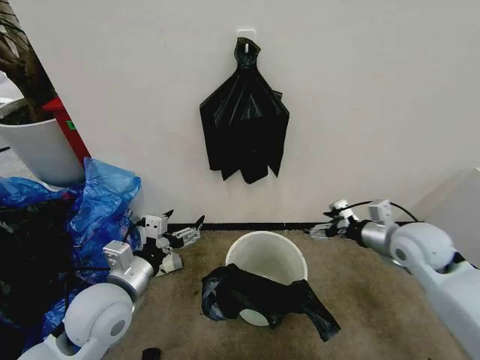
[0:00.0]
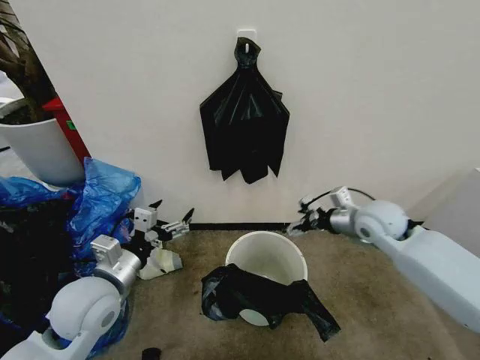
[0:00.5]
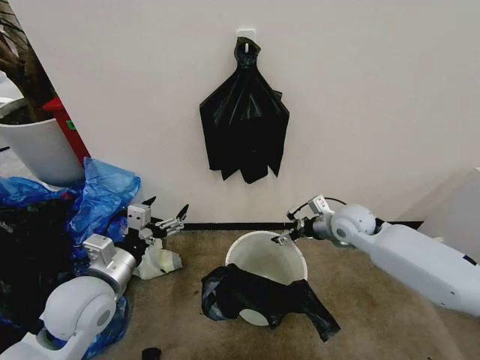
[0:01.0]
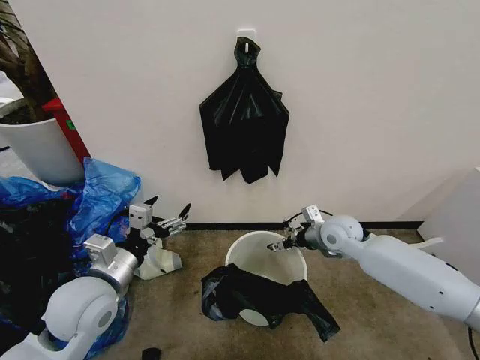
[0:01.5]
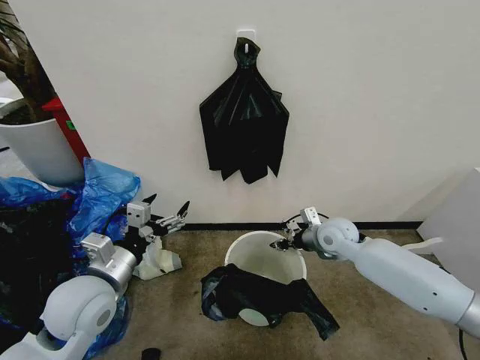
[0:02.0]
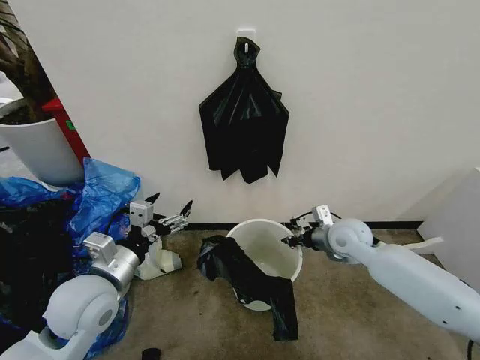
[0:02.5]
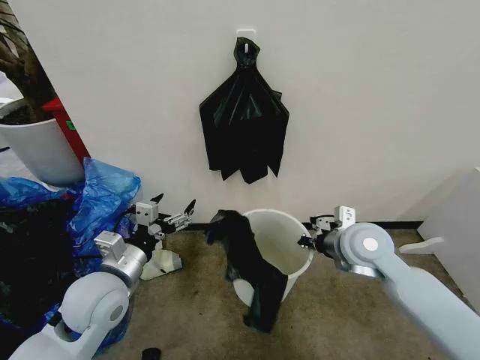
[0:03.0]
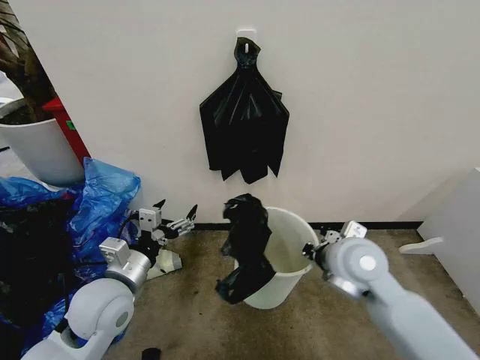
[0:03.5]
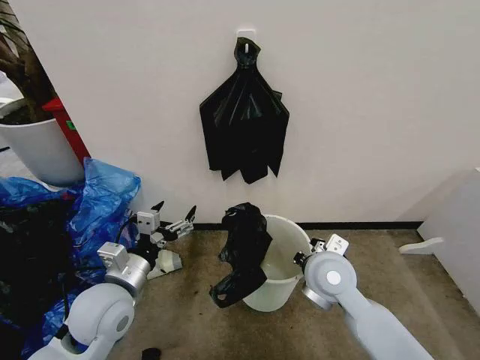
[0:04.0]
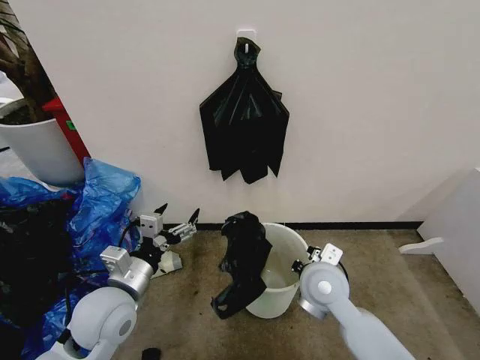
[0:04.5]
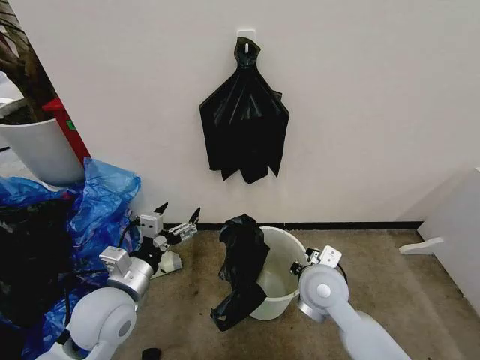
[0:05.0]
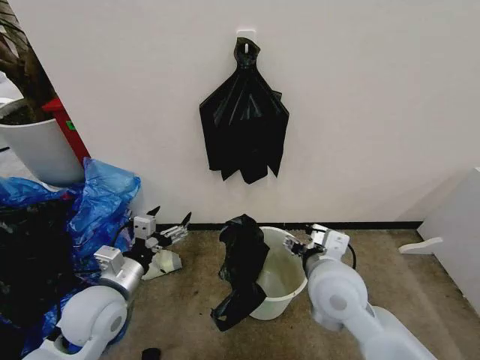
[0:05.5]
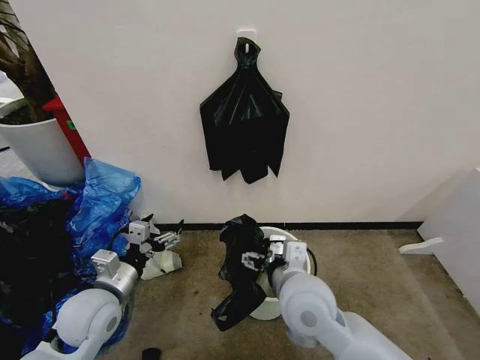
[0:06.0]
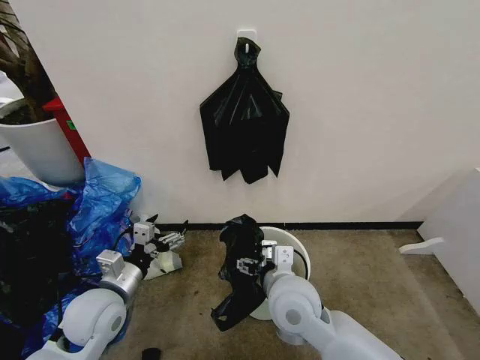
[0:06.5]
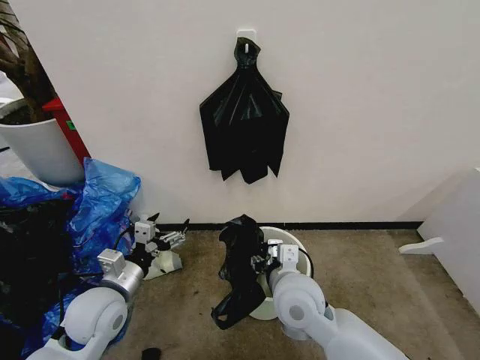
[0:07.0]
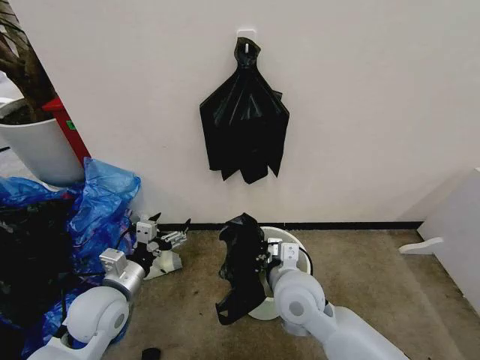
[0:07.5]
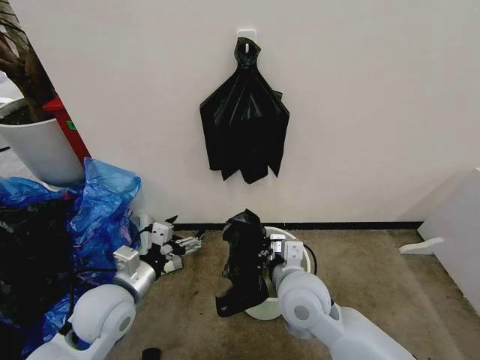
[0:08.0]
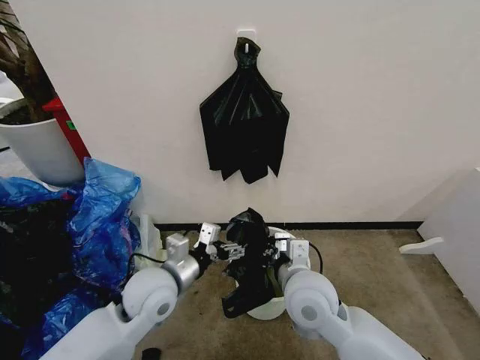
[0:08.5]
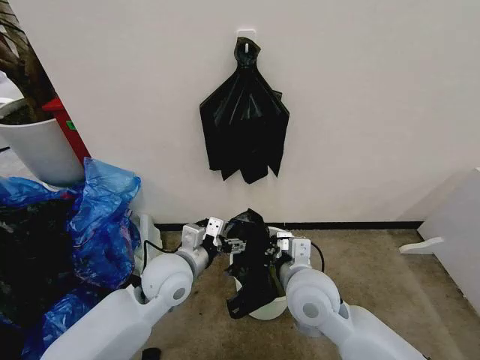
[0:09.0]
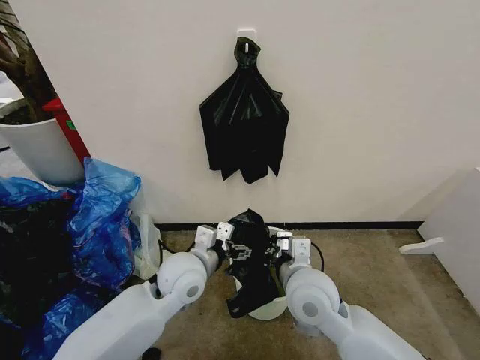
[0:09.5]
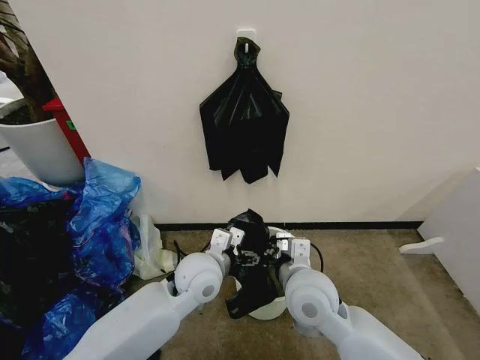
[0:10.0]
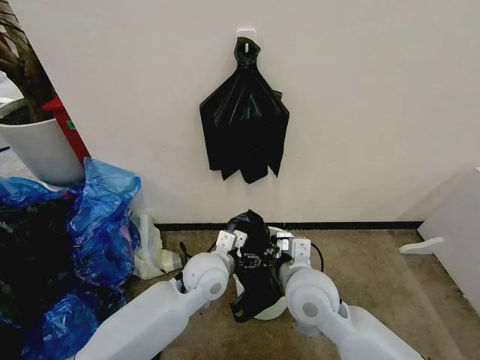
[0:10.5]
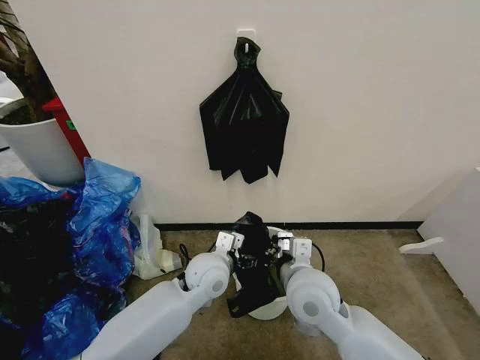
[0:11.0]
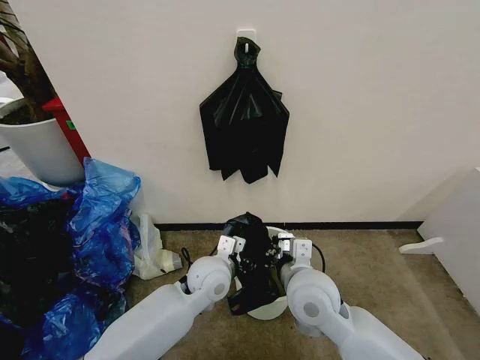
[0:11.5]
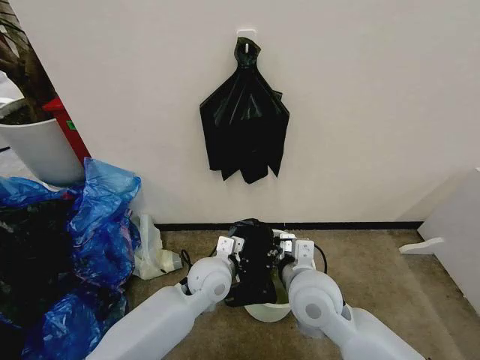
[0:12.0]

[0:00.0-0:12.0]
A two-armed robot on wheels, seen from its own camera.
Task of the whole recording: Place the garbage bag over the trash bin.
0:00.0 to 0:02.0: The right gripper is displaced to the left, forward and downward by approximately 15 cm, and closes.
0:02.0 to 0:04.0: The right gripper moves backward, to the left and upward, roughly 15 cm.
0:04.0 to 0:06.0: The left gripper ends up some 5 cm from where it was; the right gripper is displaced to the left and backward by some 10 cm, and opens.
0:06.0 to 0:08.0: The right gripper closes up.
0:08.0 to 0:10.0: The left gripper goes roughly 15 cm to the right and forward.
0:10.0 to 0:12.0: The left gripper changes place by some 5 cm, and closes up.

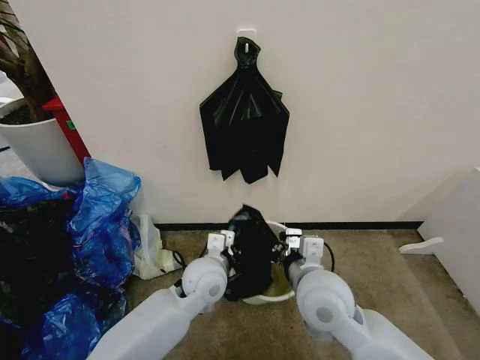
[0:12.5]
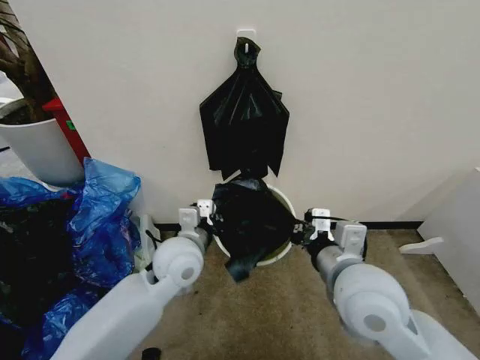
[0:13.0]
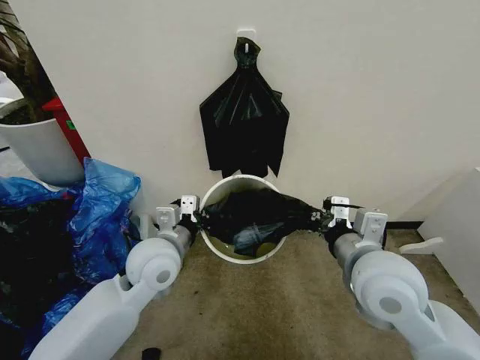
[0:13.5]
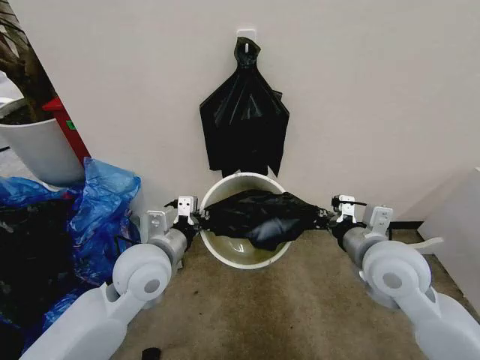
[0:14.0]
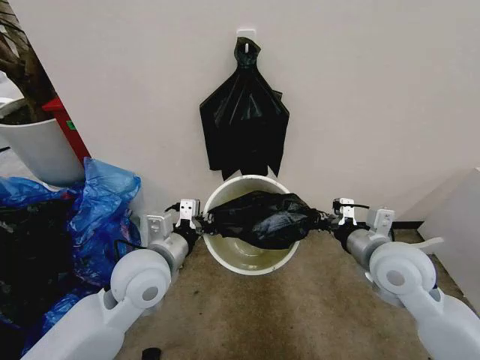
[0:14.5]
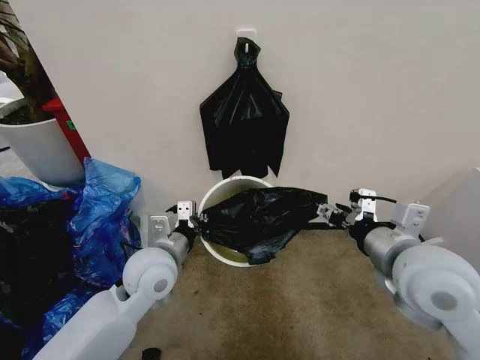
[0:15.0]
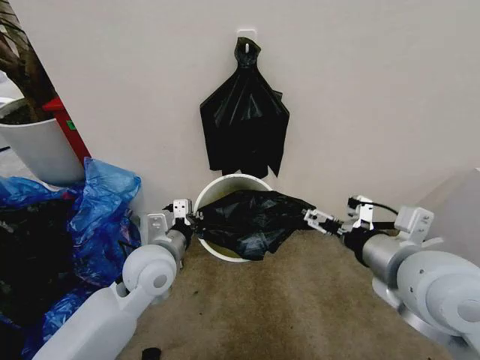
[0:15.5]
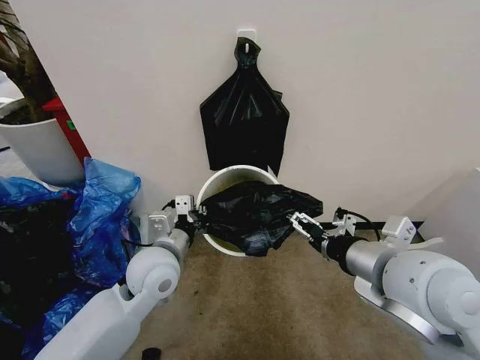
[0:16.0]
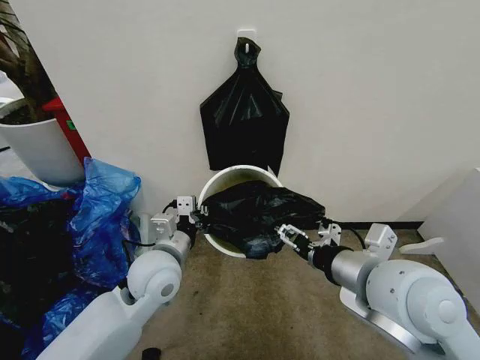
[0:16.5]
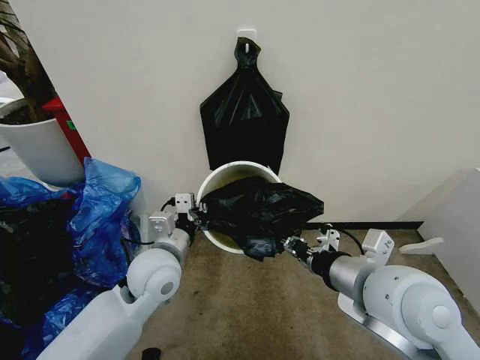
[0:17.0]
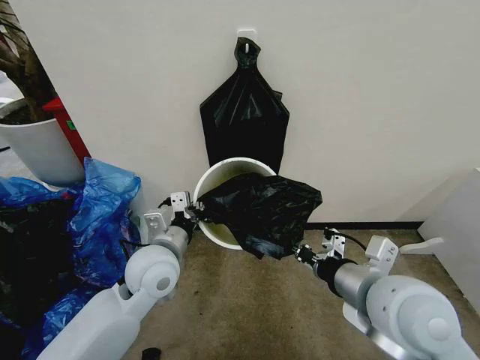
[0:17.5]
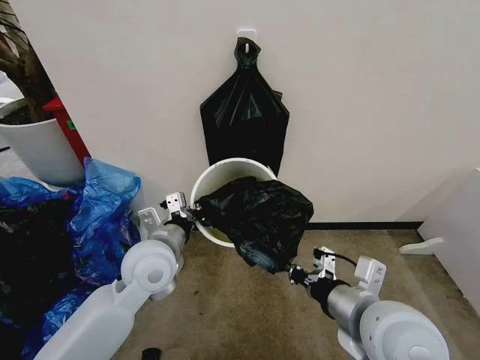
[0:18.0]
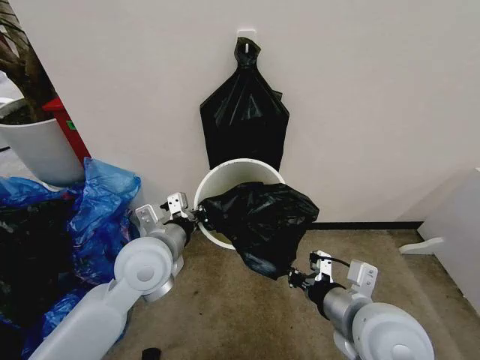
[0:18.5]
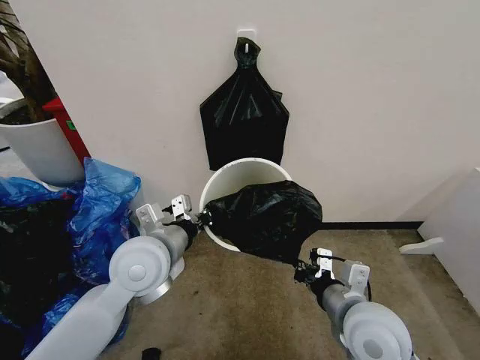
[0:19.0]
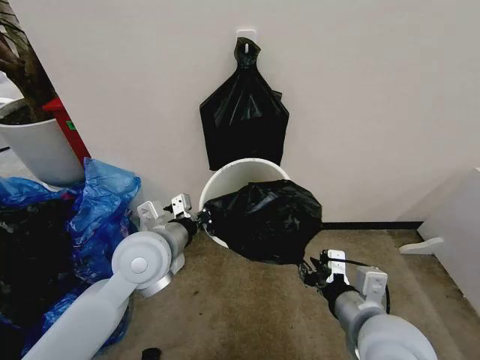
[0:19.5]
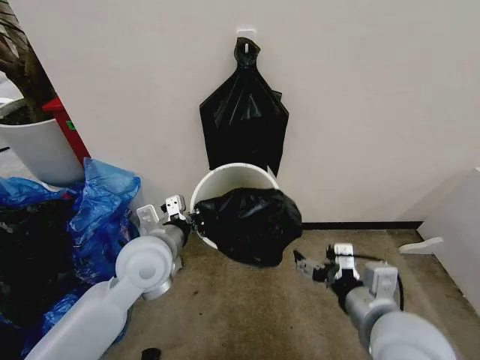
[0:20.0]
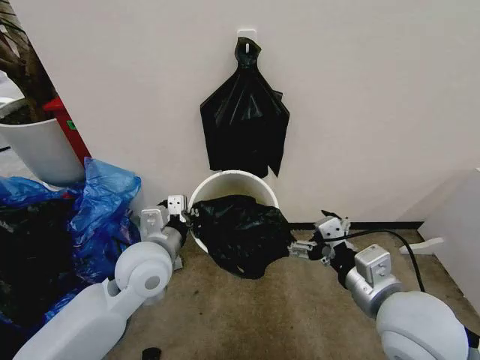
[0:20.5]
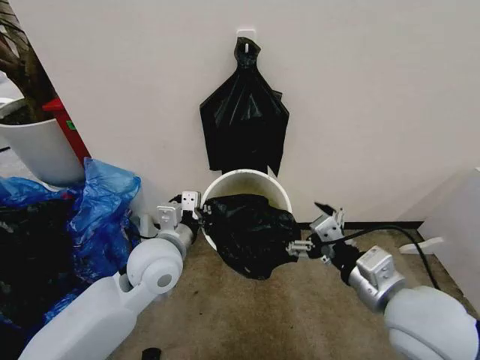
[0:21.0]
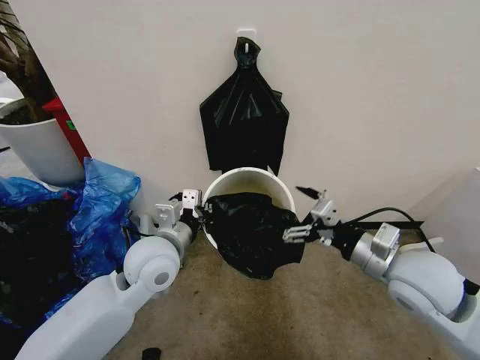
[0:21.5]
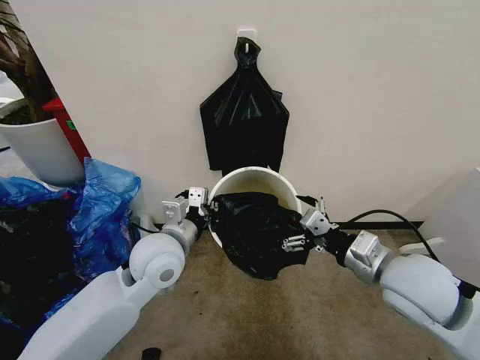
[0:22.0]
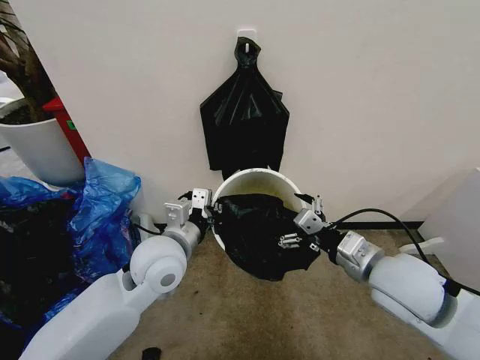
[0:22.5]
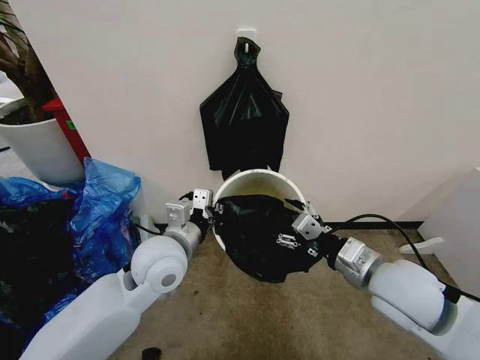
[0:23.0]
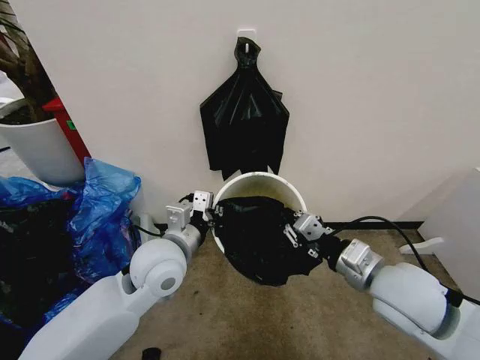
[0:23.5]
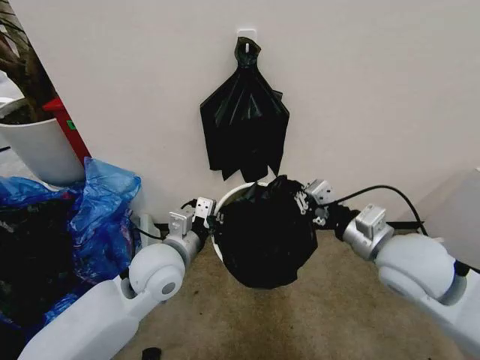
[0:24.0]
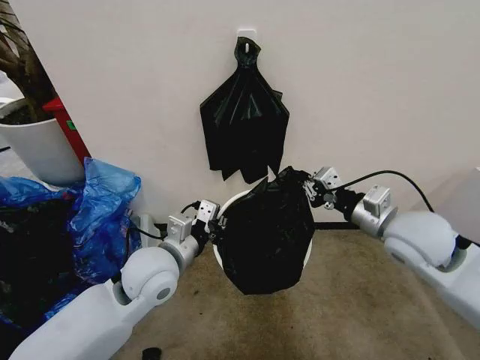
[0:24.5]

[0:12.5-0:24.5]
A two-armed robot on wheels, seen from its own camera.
Task of the whole recording: Place the garbage bag over the trash bin.
0:12.5 to 0:14.5: The right gripper travels to the right by approximately 15 cm. The left gripper goes about 15 cm upward and to the left.
0:14.5 to 0:16.5: The right gripper travels backward, upward and to the left by approximately 10 cm, and opens up.
0:16.5 to 0:18.5: The left gripper travels upward by roughly 5 cm. Meanwhile the right gripper is displaced downward by about 10 cm, and closes.
0:18.5 to 0:20.5: The right gripper opens its fingers.
0:20.5 to 0:22.5: The right gripper moves forward, roughly 5 cm.
0:22.5 to 0:24.5: The right gripper shifts roughly 5 cm forward, and closes its fingers.

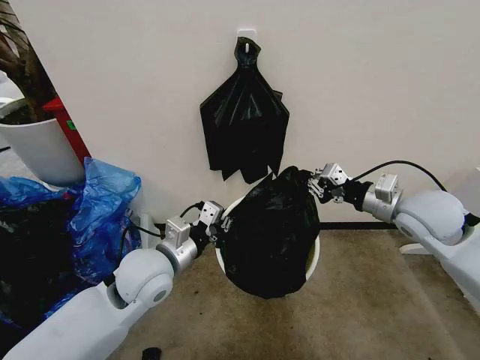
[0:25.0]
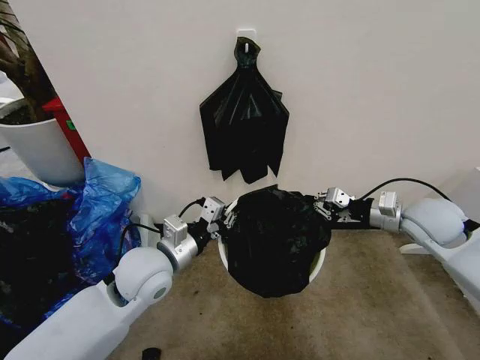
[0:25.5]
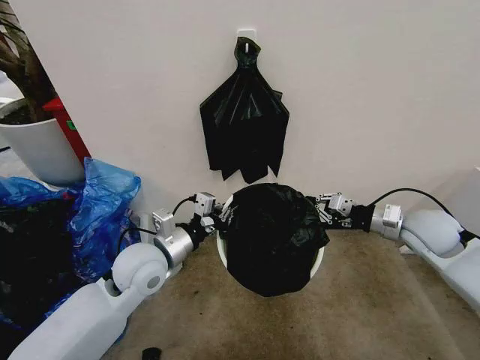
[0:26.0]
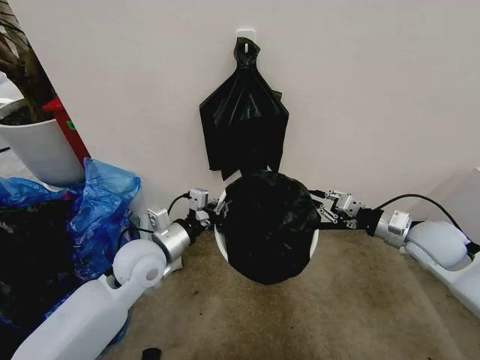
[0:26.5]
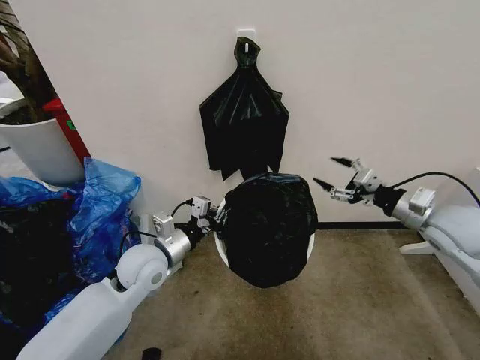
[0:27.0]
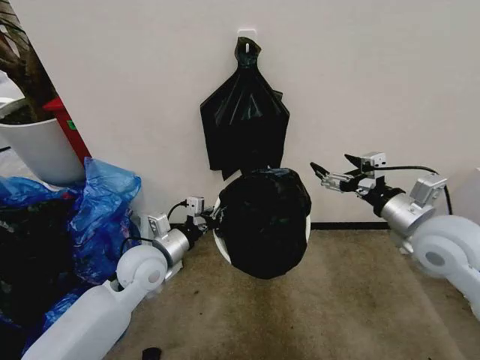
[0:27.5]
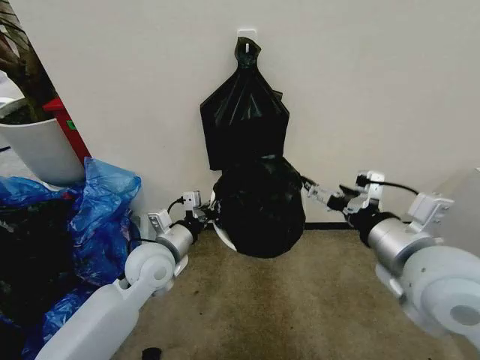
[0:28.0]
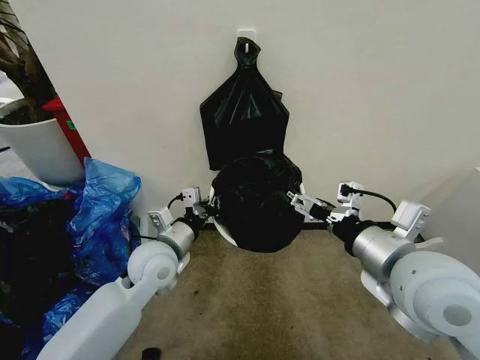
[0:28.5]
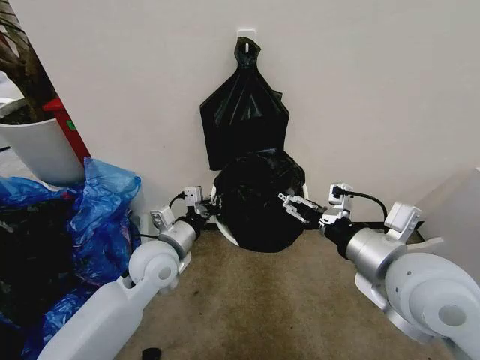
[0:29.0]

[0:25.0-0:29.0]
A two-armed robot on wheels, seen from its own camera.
Task of the whole recording: Place the garbage bag over the trash bin.
0:25.0 to 0:27.0: The right gripper moves to the right, about 5 cm, and opens. The left gripper shifts by some 5 cm.
0:27.0 to 0:29.0: The right gripper is displaced to the left and backward by some 25 cm.
